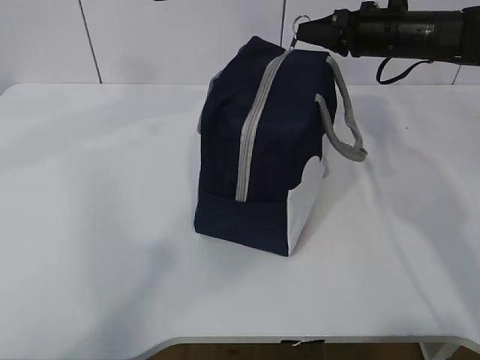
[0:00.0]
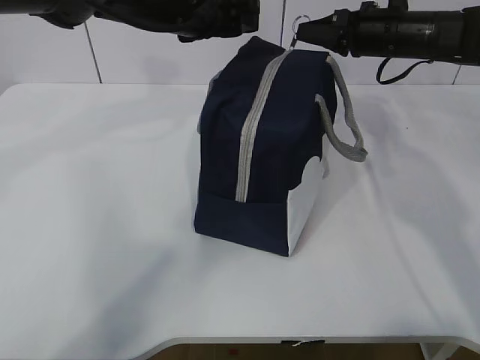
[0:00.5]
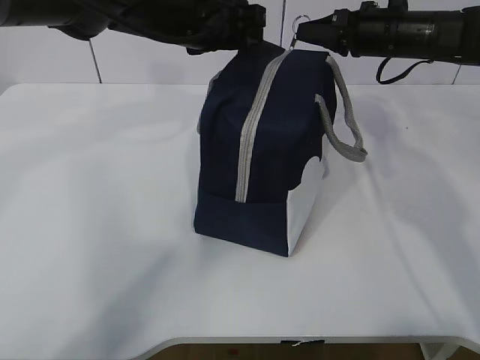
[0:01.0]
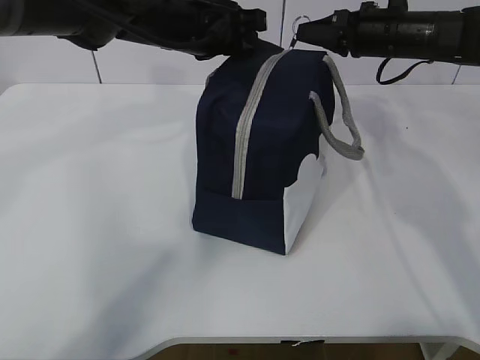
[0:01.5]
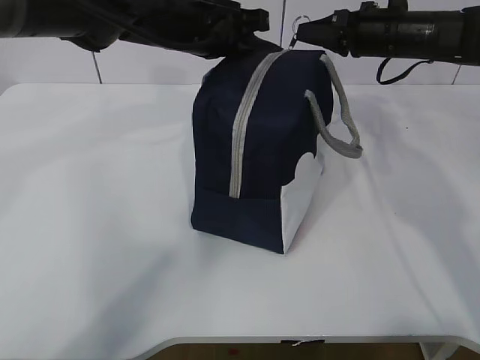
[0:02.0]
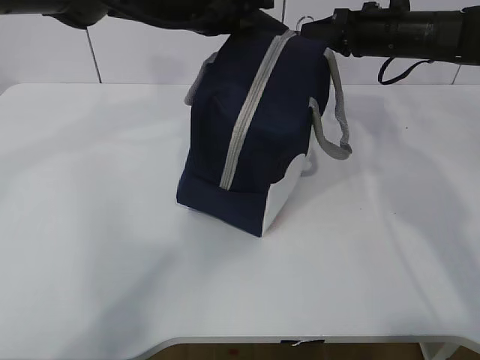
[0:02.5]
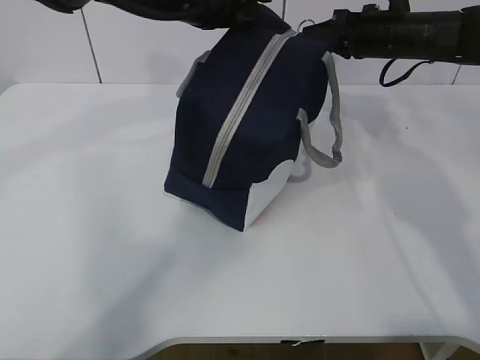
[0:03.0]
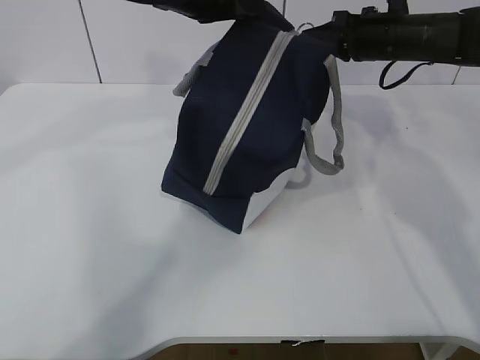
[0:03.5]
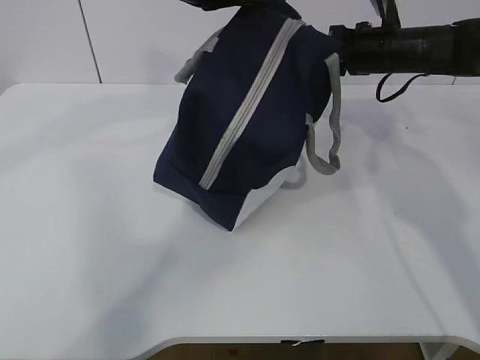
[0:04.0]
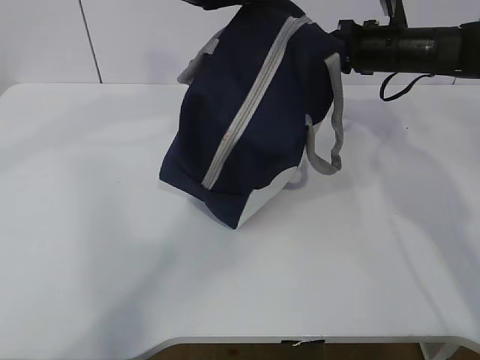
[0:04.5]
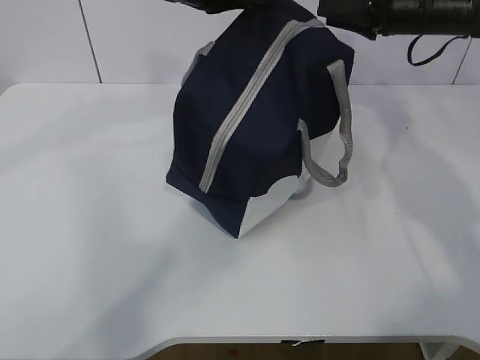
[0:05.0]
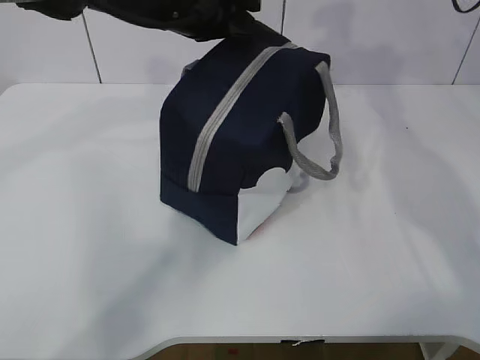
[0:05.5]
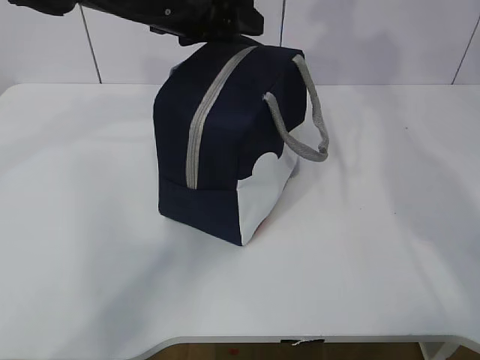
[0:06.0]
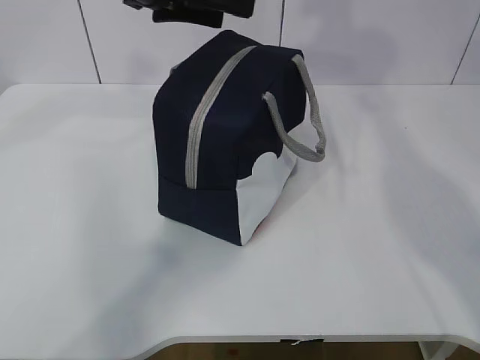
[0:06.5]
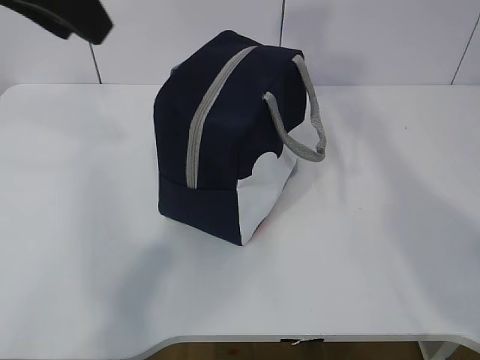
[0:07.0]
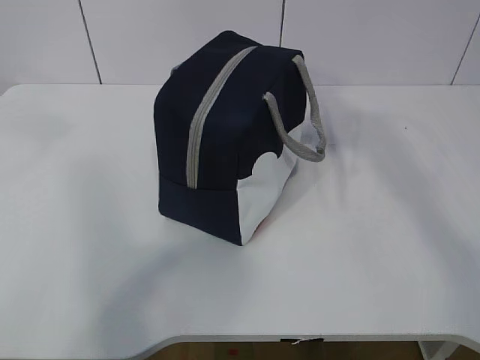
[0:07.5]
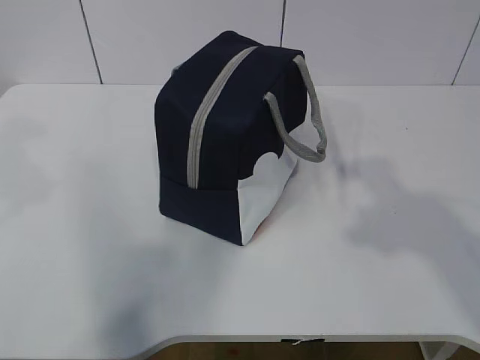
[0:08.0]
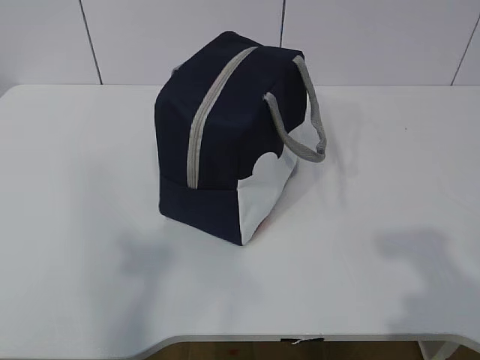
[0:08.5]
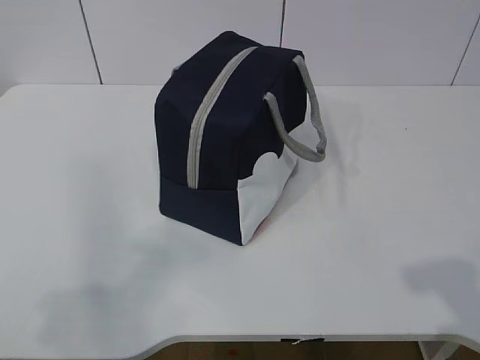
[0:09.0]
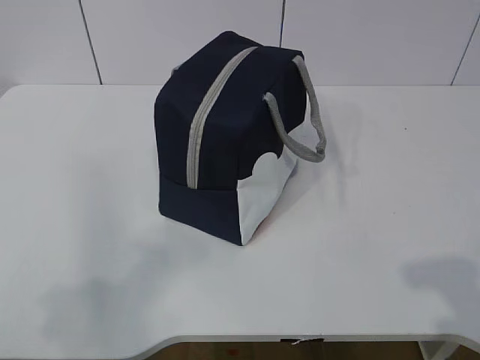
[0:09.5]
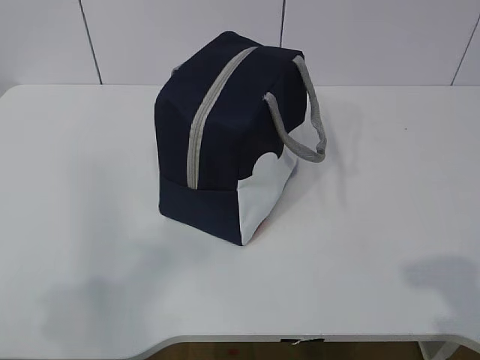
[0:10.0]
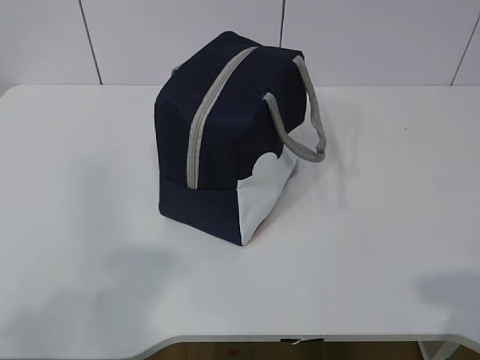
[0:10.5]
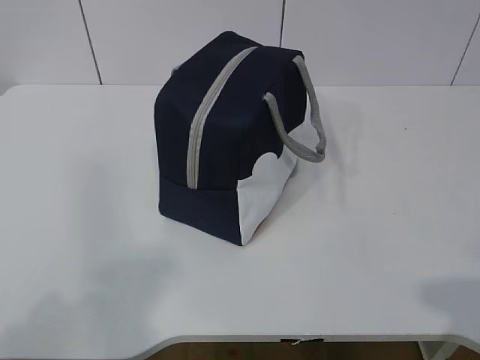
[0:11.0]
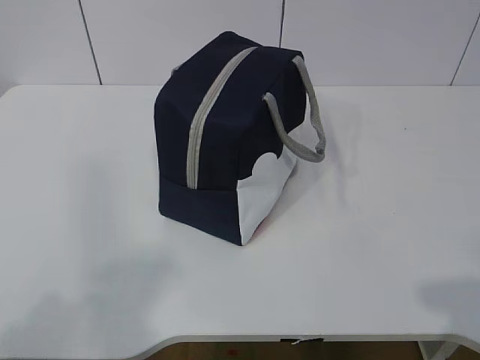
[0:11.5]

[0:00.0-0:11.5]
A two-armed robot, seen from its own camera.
Step, 0:00.0 to 0:05.0: zip up the zipper to close the bag.
0:00.0 to 0:02.0: The left gripper shifts approximately 10 cm downward and forward, and closes up.
0:02.0 to 0:04.0: The left gripper is displaced upward by roughly 5 cm.
0:04.0 to 0:06.0: The right gripper shifts some 15 cm upward, and opens its fingers. The left gripper moves some 5 cm, and opens.
0:06.0 to 0:07.5: The left gripper shifts approximately 30 cm backward, upward and to the left. The right gripper is displaced backward by about 25 cm.
0:07.5 to 0:09.5: The left gripper goes approximately 25 cm downward, backward and to the left, while the right gripper heads downward and backward, covering roughly 25 cm.
